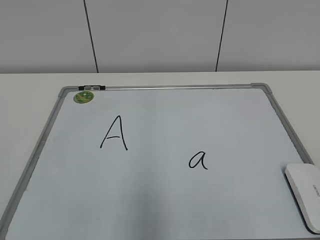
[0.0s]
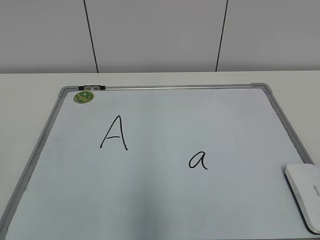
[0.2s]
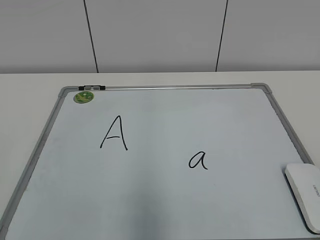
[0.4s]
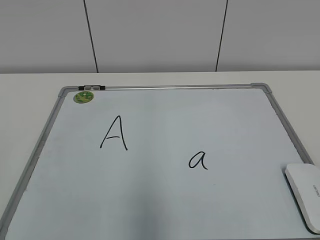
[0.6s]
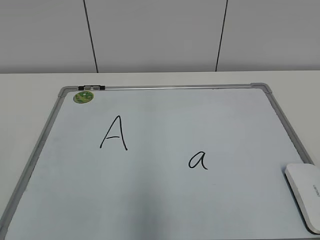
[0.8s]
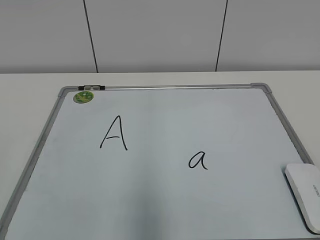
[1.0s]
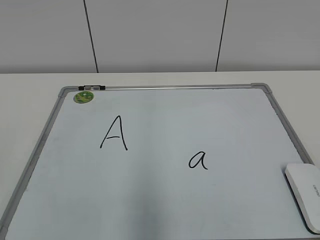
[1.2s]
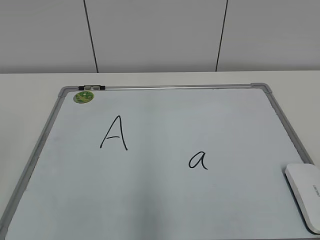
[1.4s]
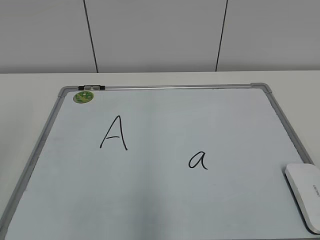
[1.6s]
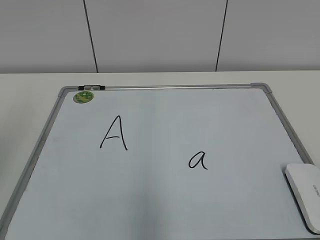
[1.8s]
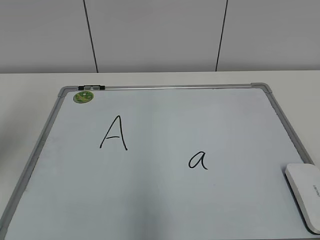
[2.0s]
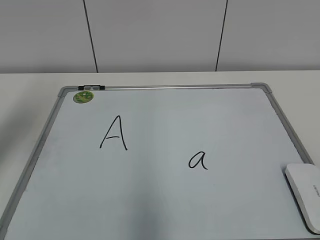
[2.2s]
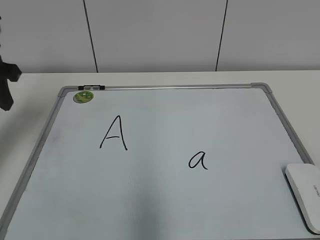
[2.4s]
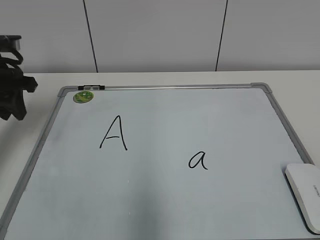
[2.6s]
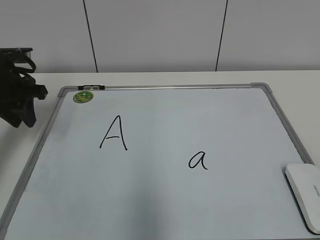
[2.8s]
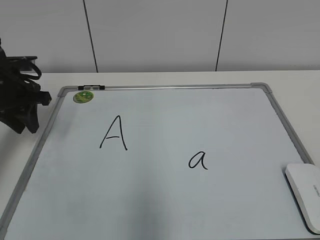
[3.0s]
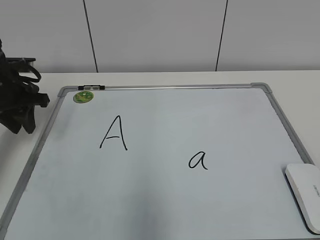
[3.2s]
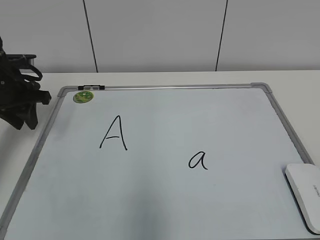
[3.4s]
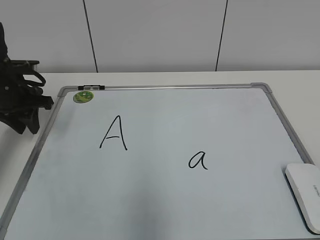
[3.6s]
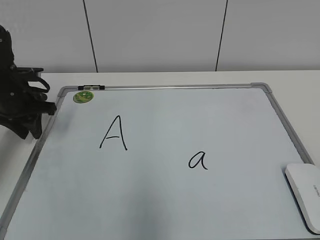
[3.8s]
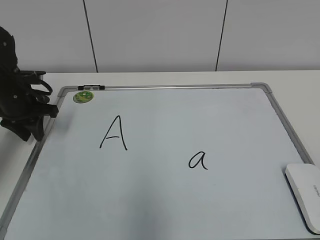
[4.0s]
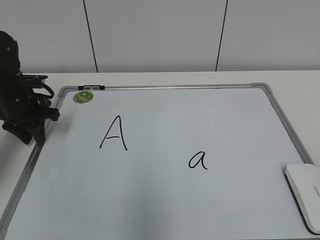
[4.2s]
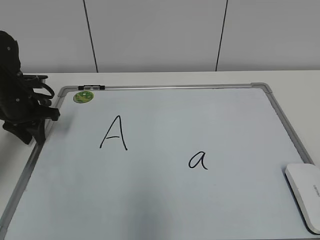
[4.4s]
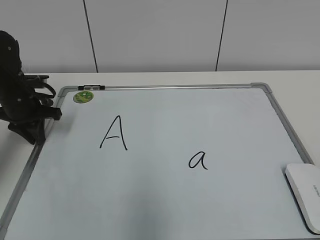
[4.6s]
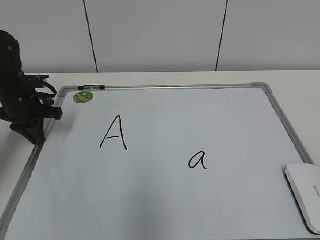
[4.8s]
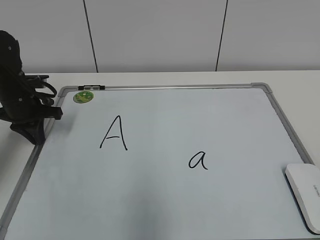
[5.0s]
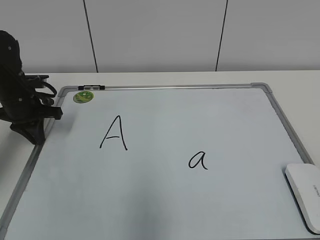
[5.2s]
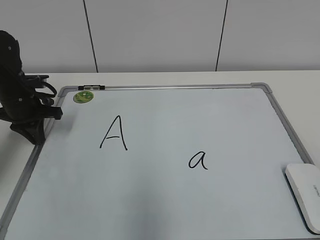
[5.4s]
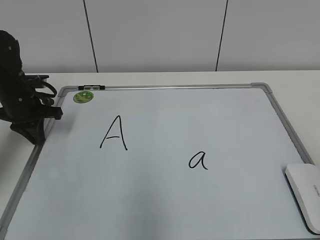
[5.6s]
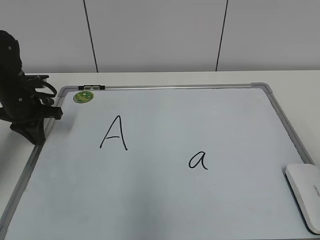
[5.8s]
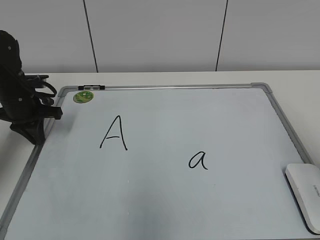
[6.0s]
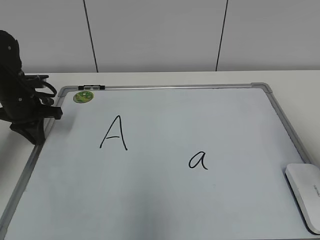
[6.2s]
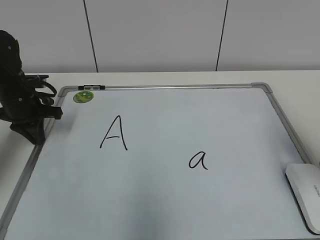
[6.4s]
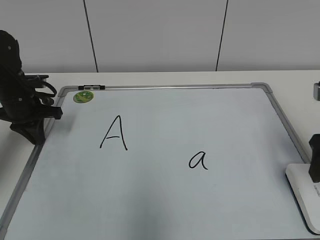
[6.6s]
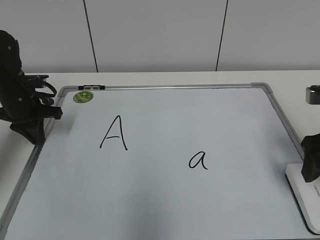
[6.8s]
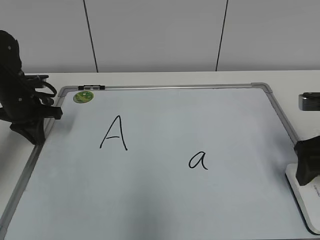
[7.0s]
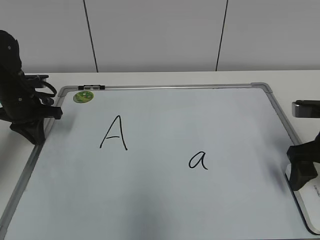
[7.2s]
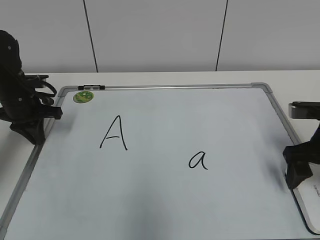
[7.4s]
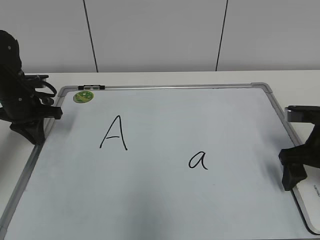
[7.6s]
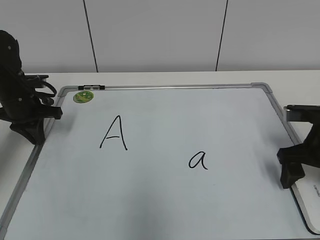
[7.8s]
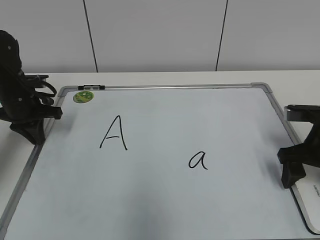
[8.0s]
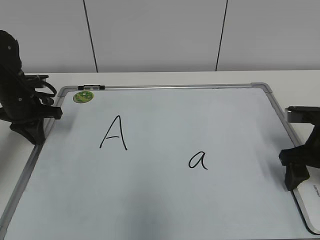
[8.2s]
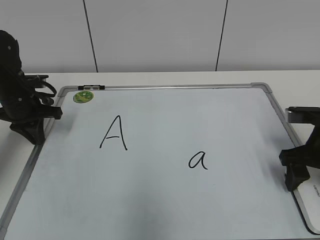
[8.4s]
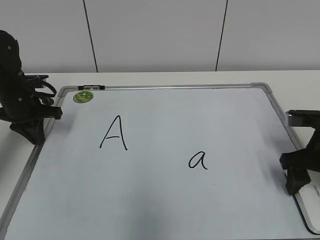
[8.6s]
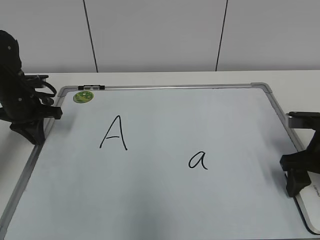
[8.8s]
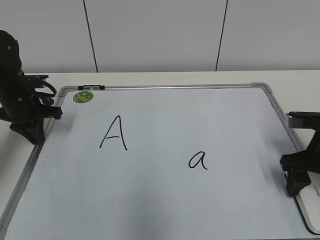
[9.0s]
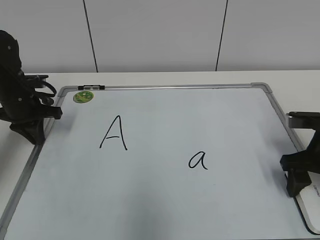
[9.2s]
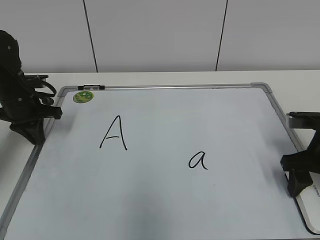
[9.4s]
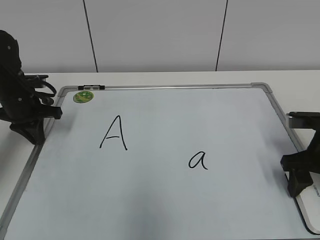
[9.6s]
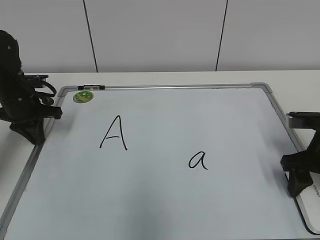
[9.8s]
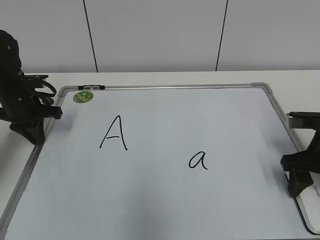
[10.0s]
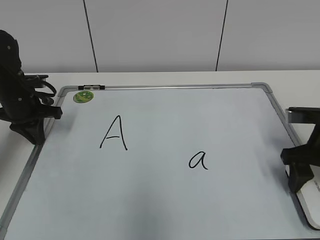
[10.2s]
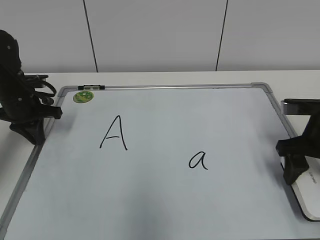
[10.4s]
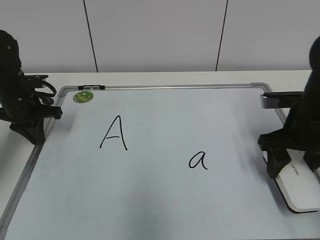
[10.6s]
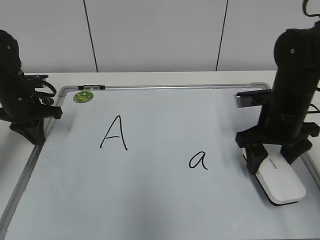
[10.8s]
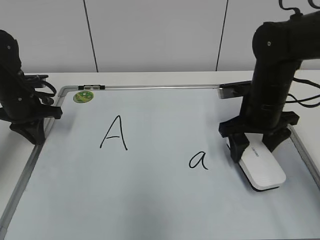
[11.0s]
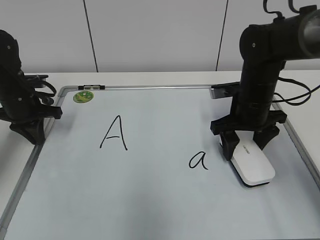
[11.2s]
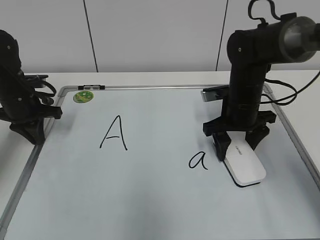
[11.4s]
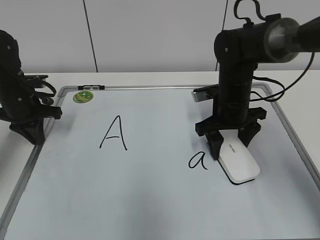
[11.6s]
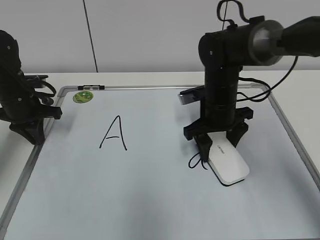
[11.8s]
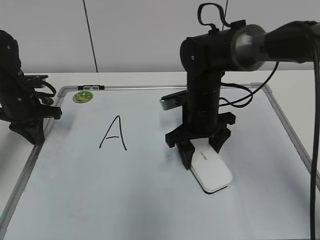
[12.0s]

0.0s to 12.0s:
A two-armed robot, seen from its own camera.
Task of the whole recording: pick up the eraser on the blackboard and erase the letter "a".
Step, 0.0s to 4.6s: Hold the drawing board steady with your left hand.
Step, 4.8s to 9.8s: Grab the eraser with your right hand.
1.6s to 3.0s: The left gripper heads forward and downward, covering some 35 cm.
3.0s to 4.4s: The left gripper shifts roughly 5 cm downward.
4.4s to 6.0s: The left gripper closes its fingers.
6.0s to 7.6s: The right gripper travels forward and downward by some 20 cm, and opens.
7.6s to 9.0s: The right gripper closes.
9.0s to 10.4s: The right gripper closes its fingers.
10.4s to 12.0s: The right gripper goes roughly 20 cm to the left and forward.

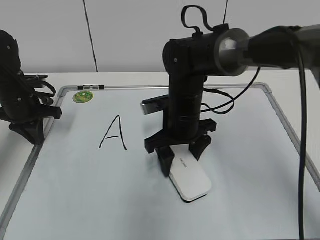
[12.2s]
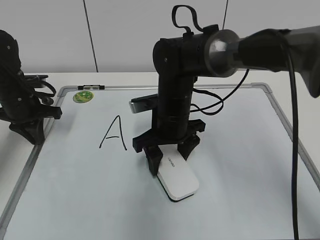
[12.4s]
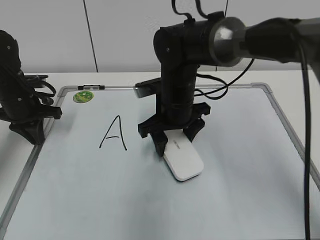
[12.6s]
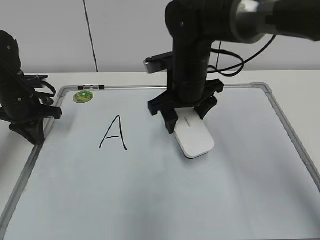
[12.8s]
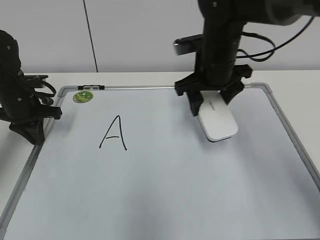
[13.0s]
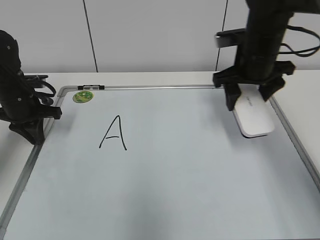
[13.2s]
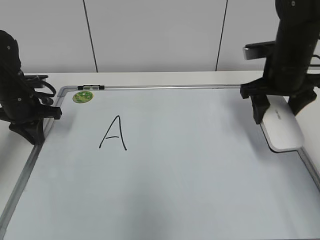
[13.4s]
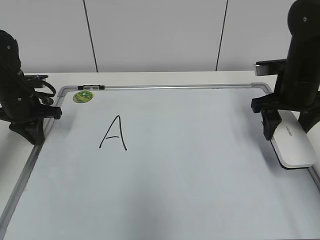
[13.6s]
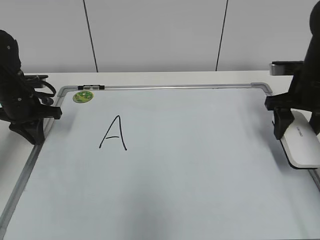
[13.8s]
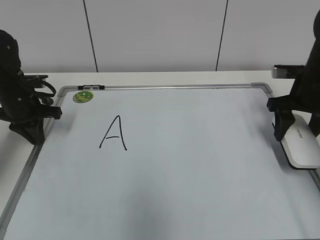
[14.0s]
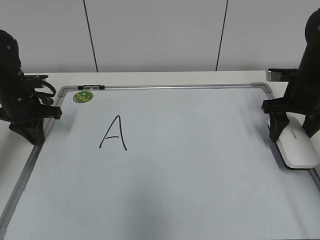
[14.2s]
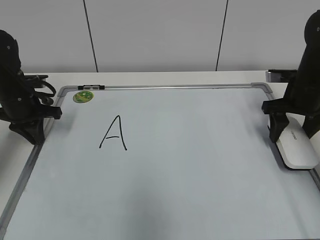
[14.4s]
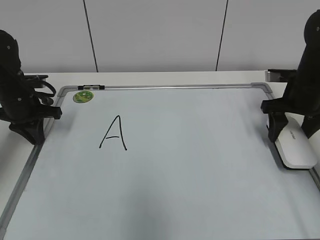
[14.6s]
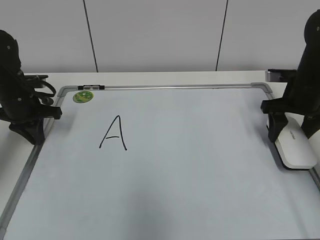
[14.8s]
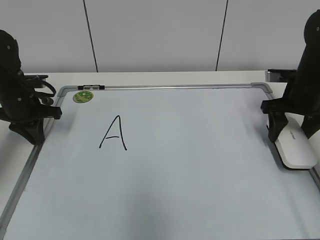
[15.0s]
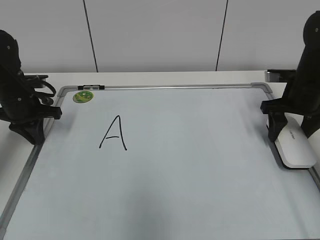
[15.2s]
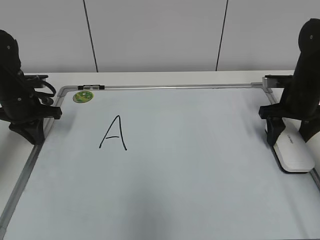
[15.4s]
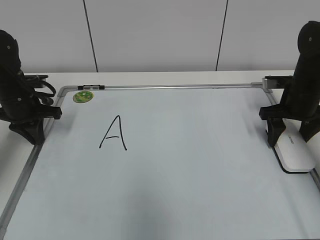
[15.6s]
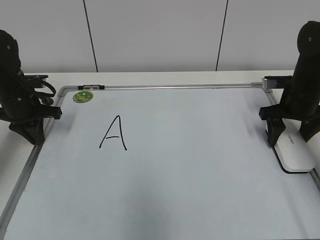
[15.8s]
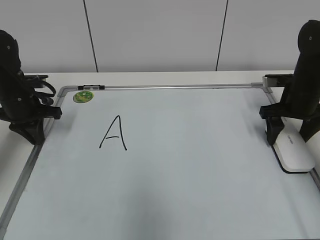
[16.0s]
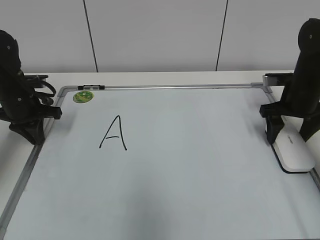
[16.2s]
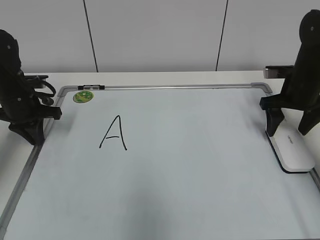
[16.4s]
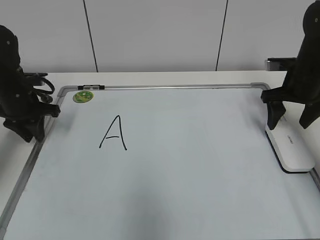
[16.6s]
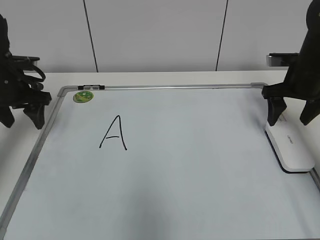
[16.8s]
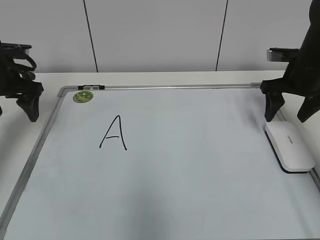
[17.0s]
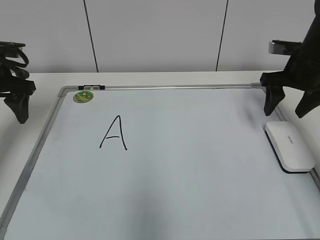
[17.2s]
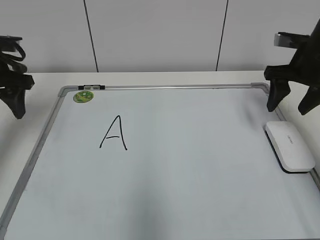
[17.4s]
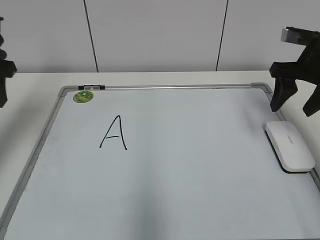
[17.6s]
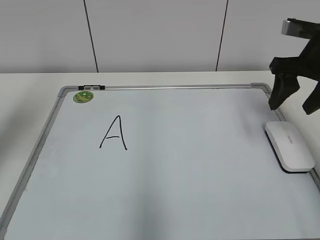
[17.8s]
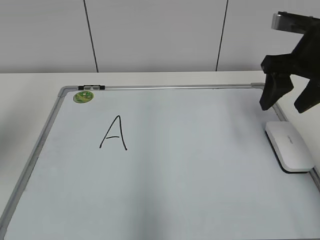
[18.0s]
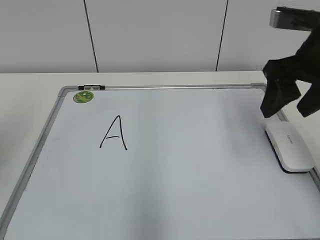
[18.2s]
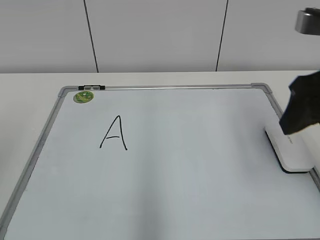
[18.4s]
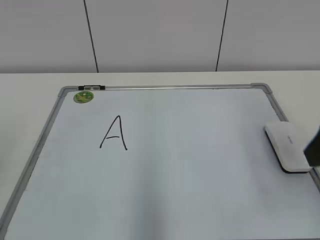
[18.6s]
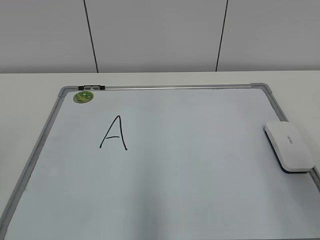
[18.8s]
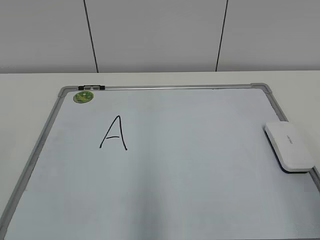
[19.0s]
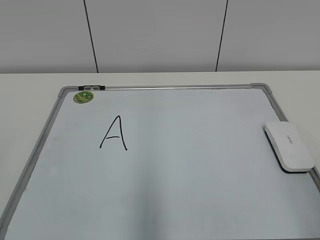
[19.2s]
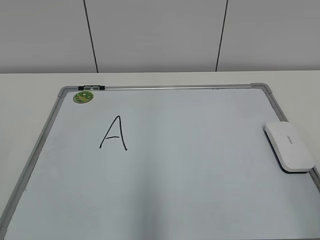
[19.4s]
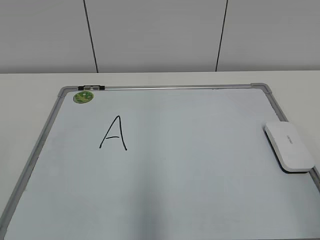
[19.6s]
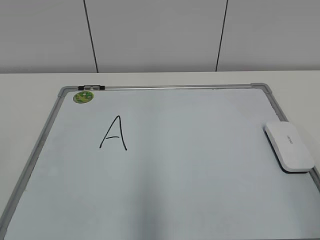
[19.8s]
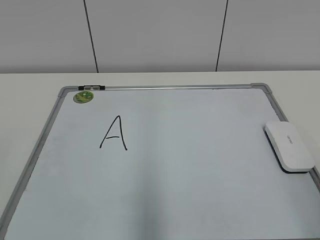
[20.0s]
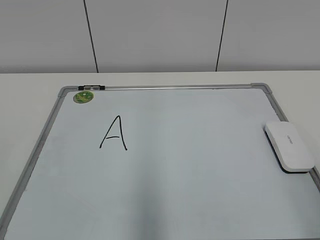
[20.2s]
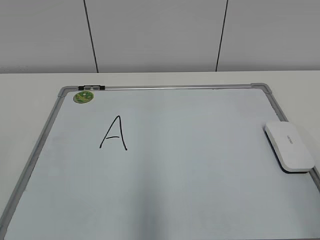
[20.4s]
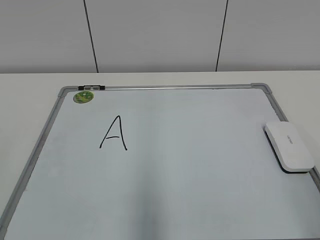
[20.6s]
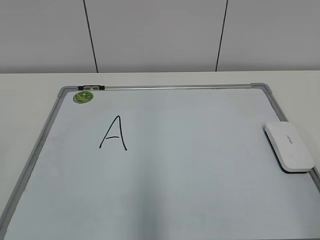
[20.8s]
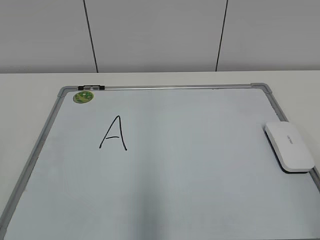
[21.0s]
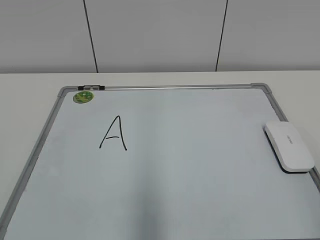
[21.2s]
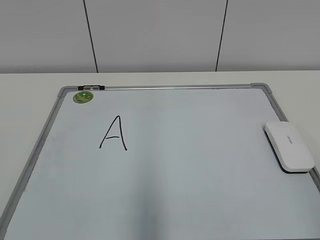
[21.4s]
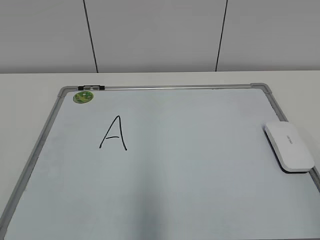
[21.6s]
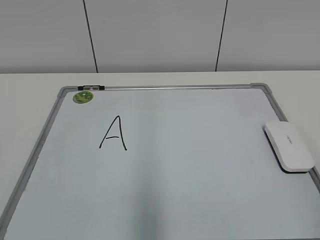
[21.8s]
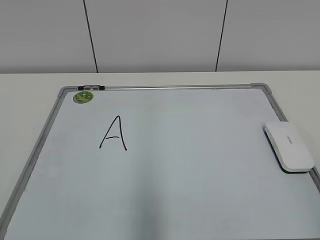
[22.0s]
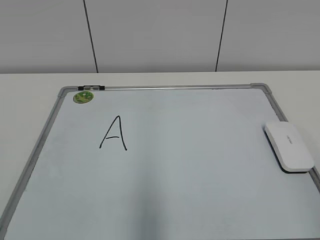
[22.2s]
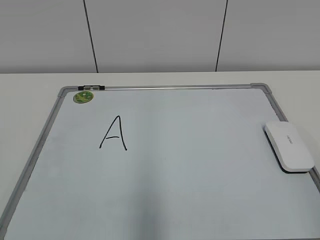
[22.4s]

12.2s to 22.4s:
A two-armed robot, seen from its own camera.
Task of the whole recording: pick up the eraser on the blackboard and erase the letter "a".
12.2s to 13.6s: The right gripper goes some 20 cm to the right.
13.6s to 15.2s: The right gripper moves approximately 5 cm.
15.2s to 16.6s: The right gripper opens up.
16.6s to 18.0s: The left gripper goes about 25 cm upward and backward, and opens its fingers. The right gripper shifts approximately 15 cm upward and backward, and closes up.
18.0s to 19.4s: Both grippers move backward, approximately 25 cm.
